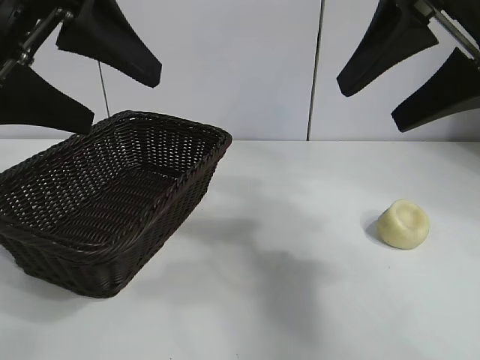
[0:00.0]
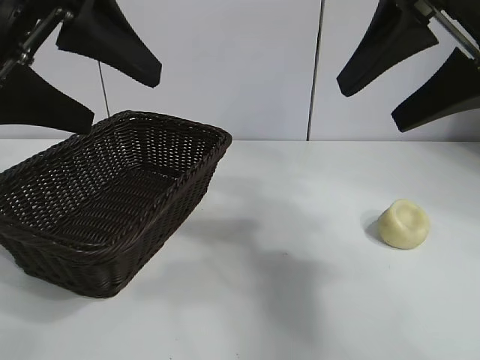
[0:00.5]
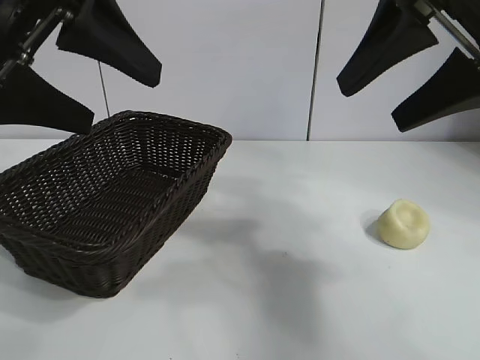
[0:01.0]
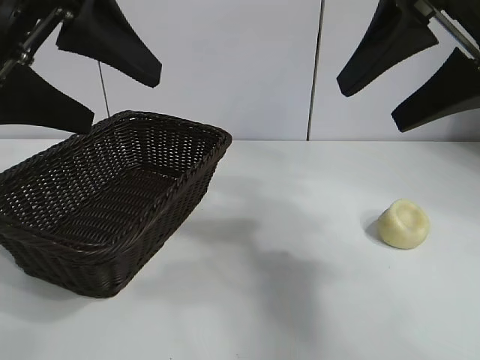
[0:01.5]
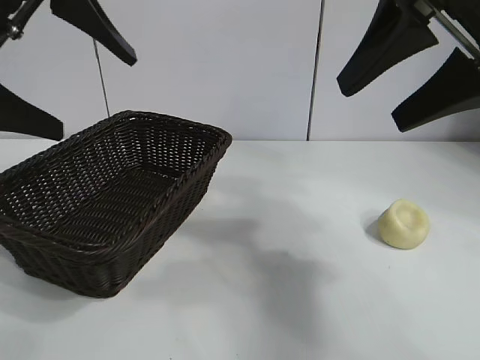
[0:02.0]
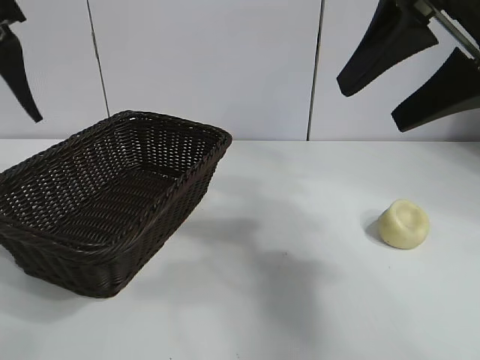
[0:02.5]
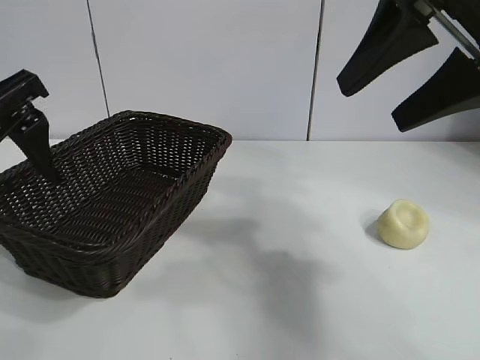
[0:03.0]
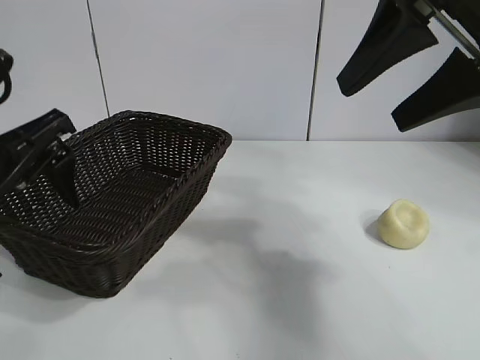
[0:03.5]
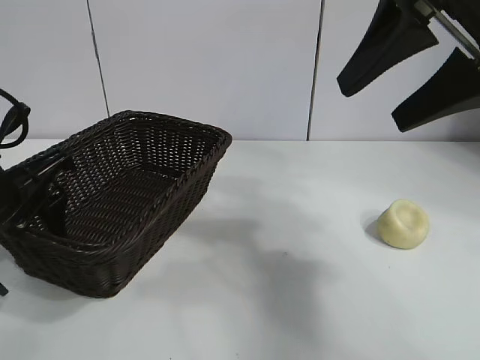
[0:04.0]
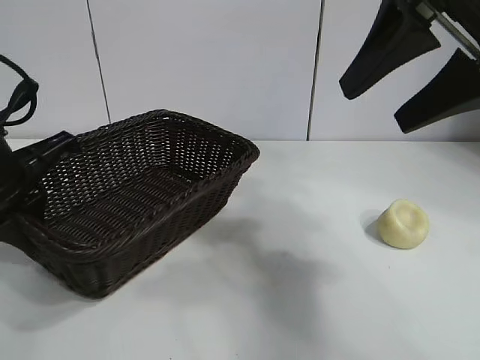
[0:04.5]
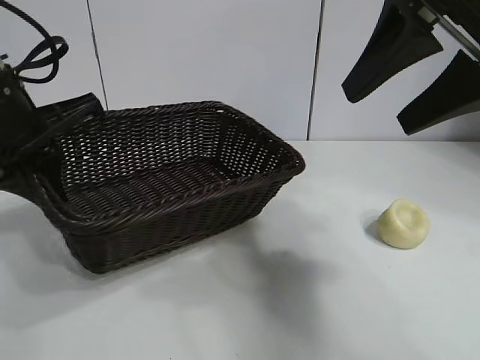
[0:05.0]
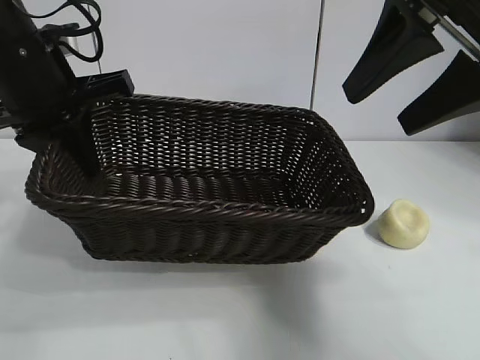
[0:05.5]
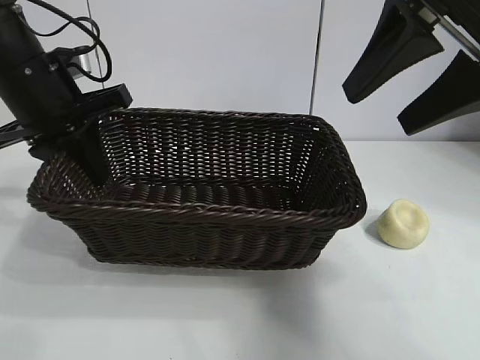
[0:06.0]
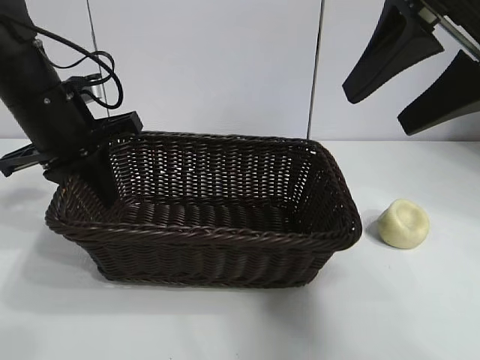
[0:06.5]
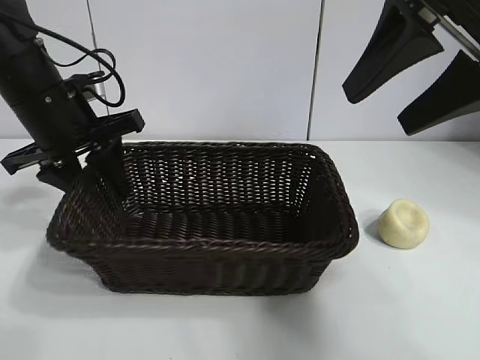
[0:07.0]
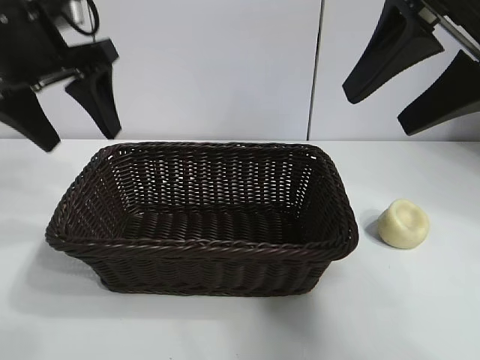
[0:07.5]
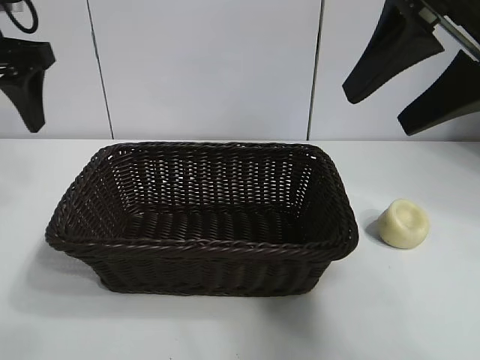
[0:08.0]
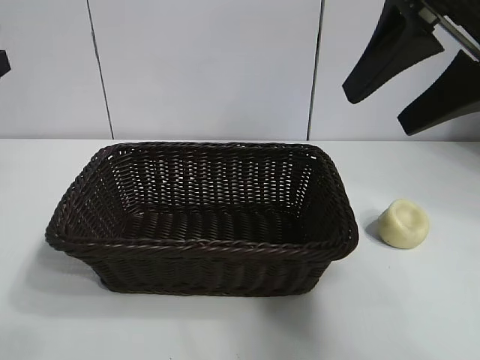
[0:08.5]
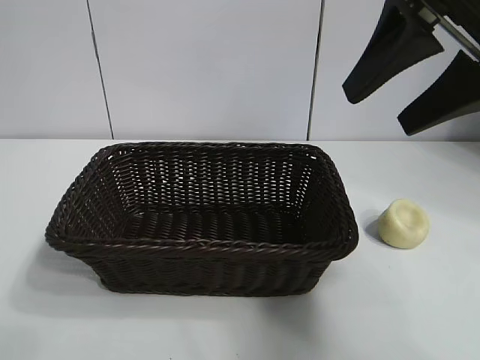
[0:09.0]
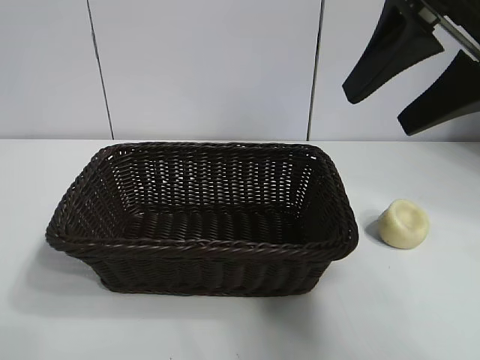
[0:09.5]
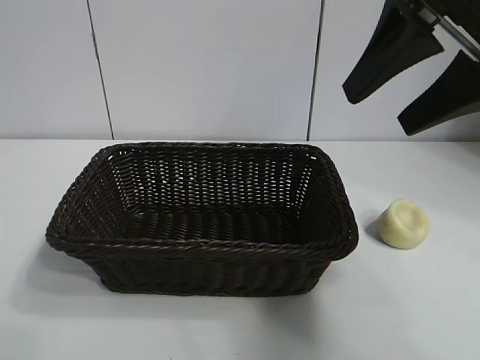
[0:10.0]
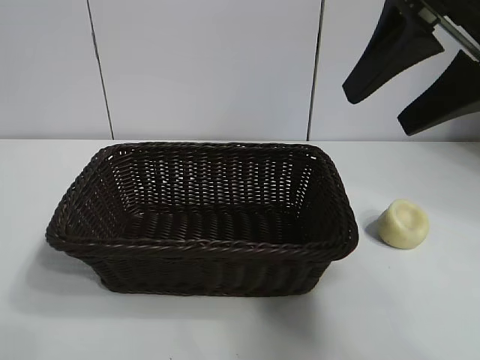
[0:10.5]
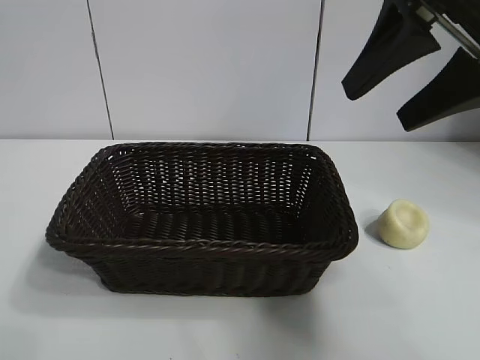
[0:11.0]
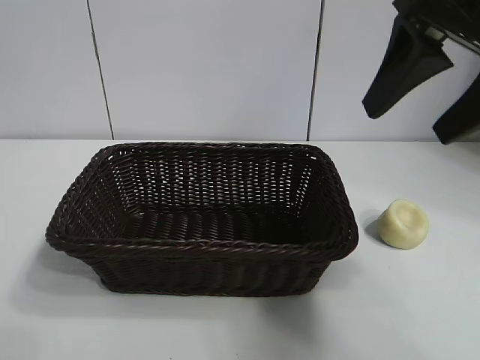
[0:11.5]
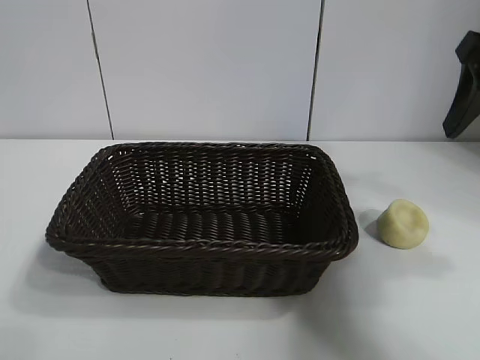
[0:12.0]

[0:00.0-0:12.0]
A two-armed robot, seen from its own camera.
Task of the whole recording: pick up the egg yolk pastry and put it into the basket.
Step, 0:02.0 to 0:04.0: Grasp the basket with left gripper.
Step, 0:04.5 to 0:07.0: Place the basket in the center of view with left gripper.

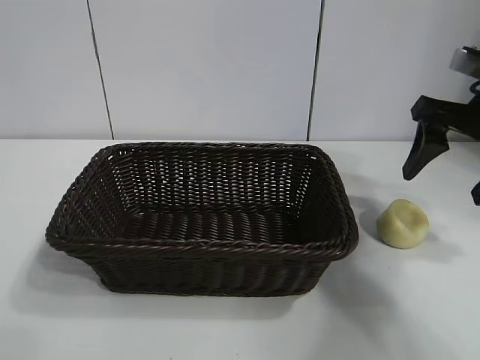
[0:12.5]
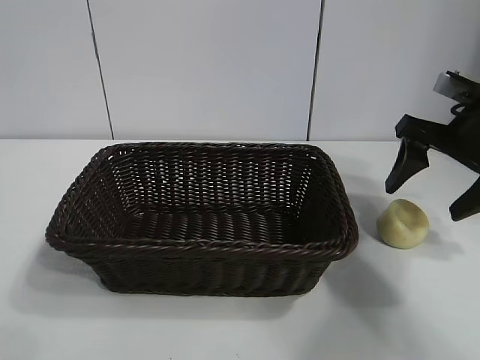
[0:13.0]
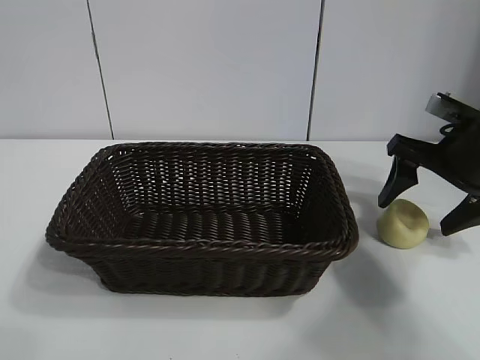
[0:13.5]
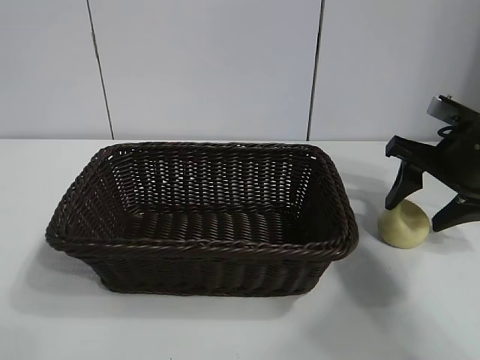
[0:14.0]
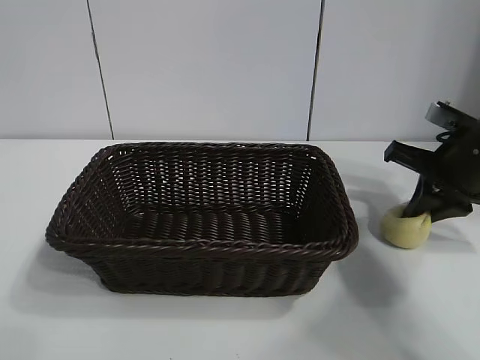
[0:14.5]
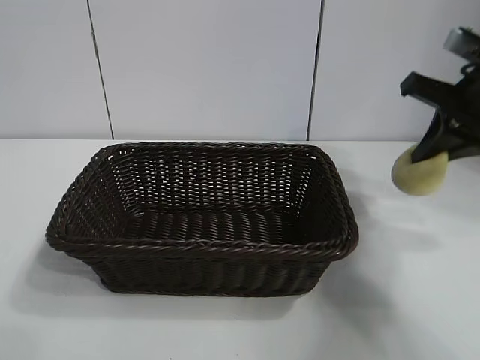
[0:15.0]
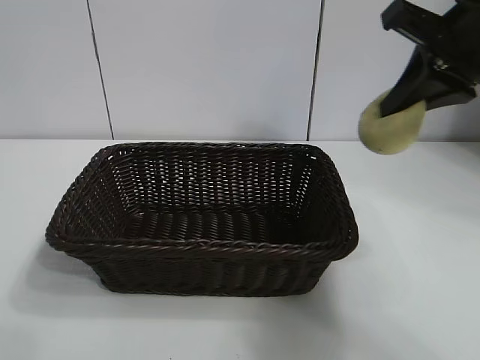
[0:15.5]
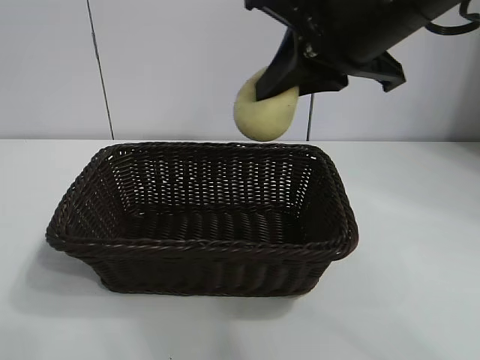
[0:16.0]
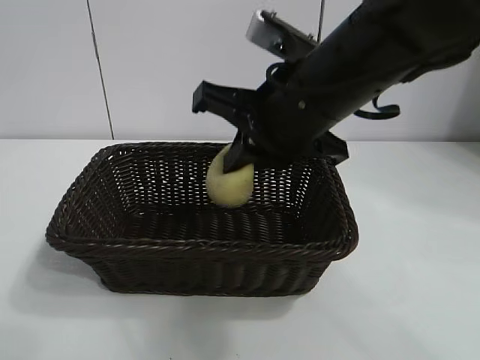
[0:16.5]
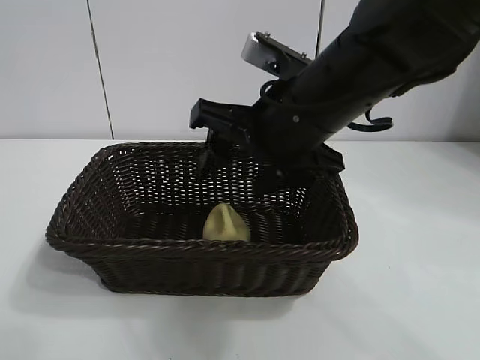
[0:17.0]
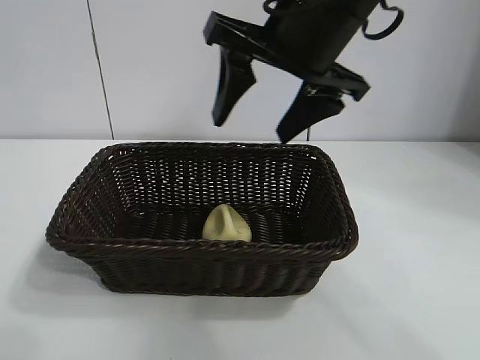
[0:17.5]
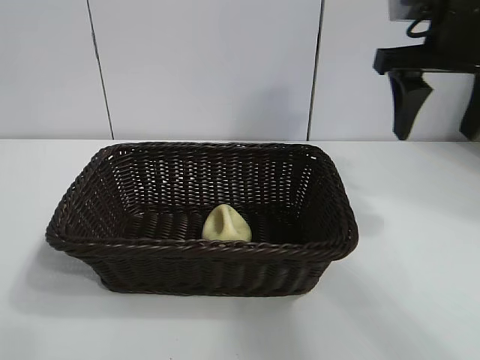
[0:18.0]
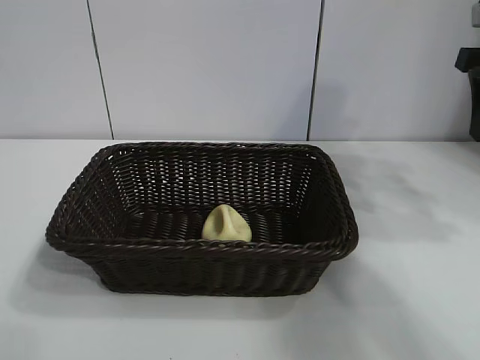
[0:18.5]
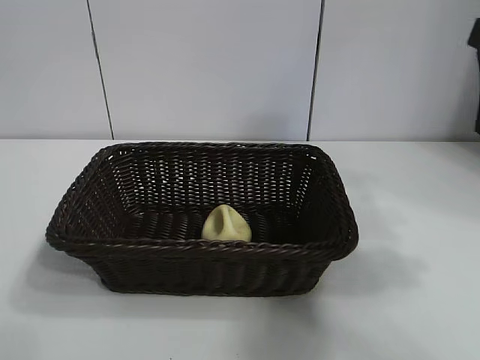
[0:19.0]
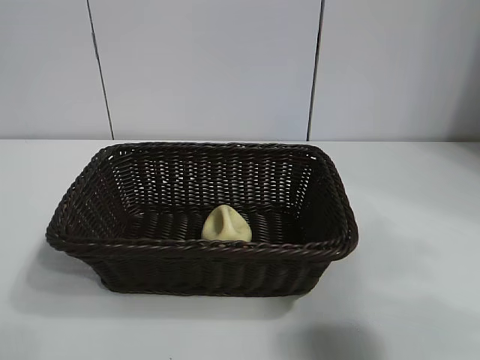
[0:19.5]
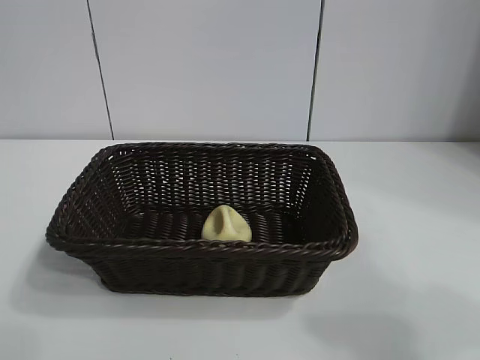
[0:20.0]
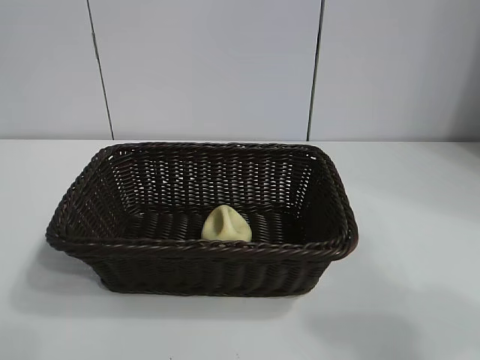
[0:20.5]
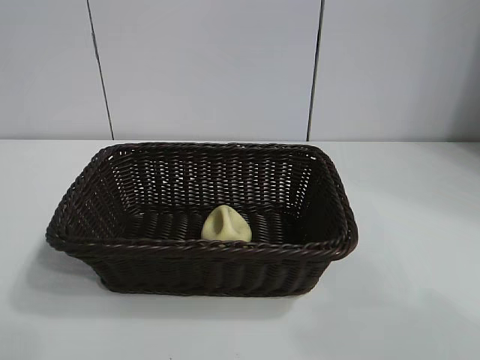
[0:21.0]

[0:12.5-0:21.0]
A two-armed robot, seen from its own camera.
Task of the whole recording: pick up the egg yolk pastry and put it into the basket.
Step, 0:12.5 to 0:14.5: Grasp egg yolk pastry with right gripper.
Step, 0:15.0 to 0:16.5: Place the egg yolk pastry in the basket with right gripper.

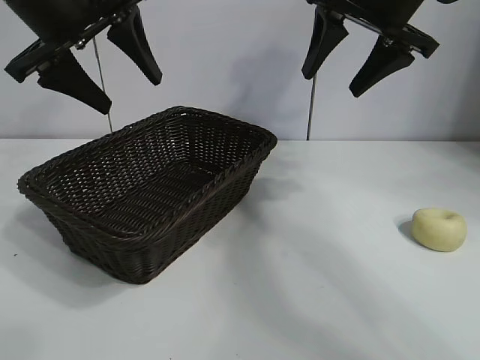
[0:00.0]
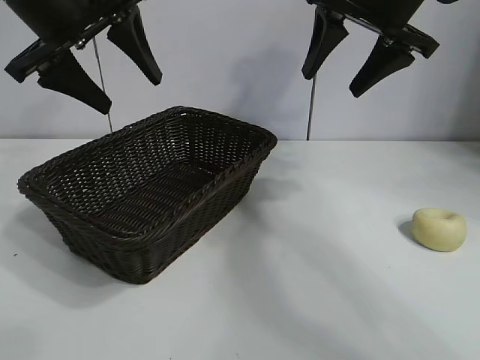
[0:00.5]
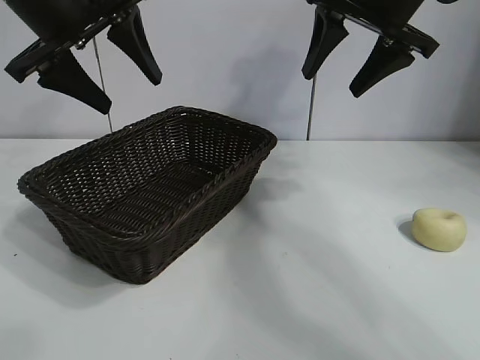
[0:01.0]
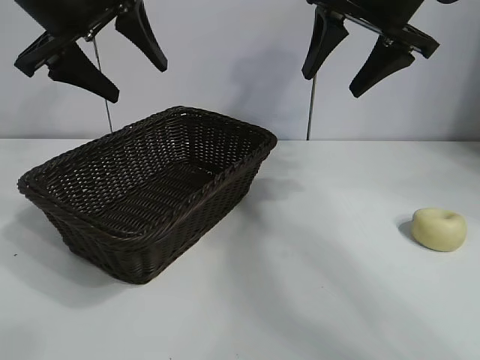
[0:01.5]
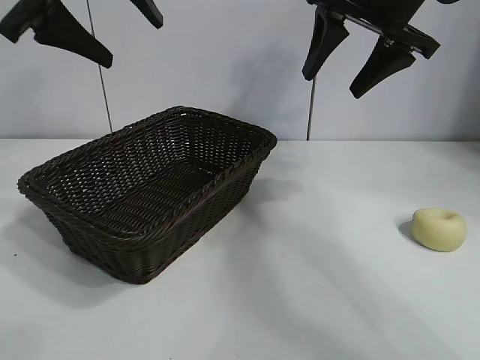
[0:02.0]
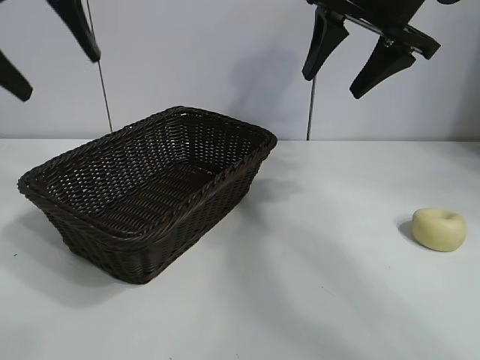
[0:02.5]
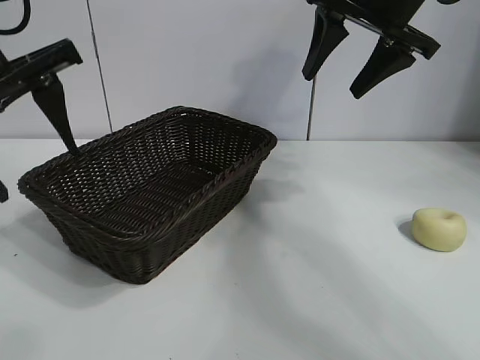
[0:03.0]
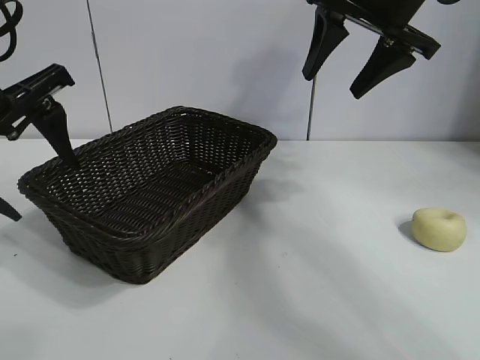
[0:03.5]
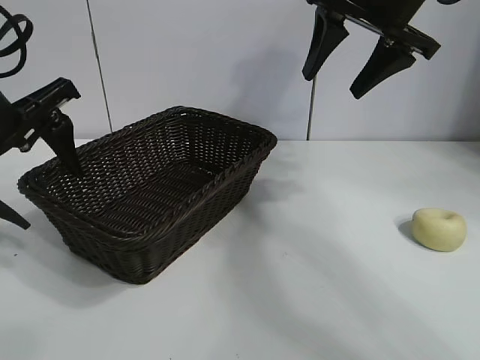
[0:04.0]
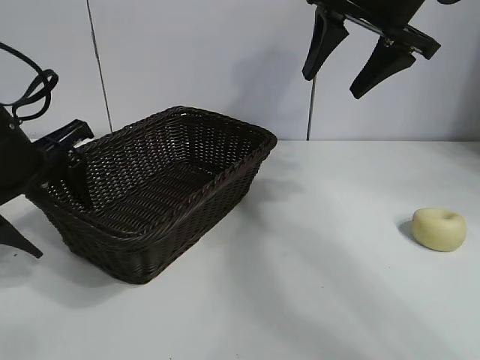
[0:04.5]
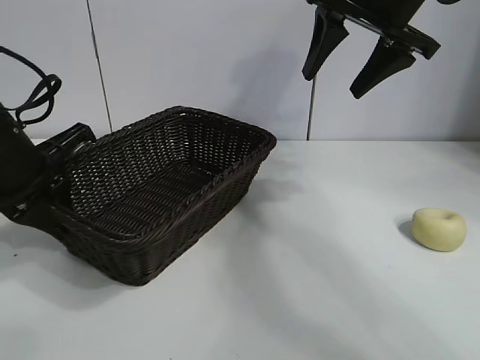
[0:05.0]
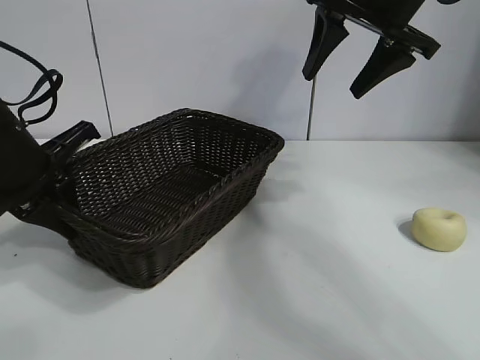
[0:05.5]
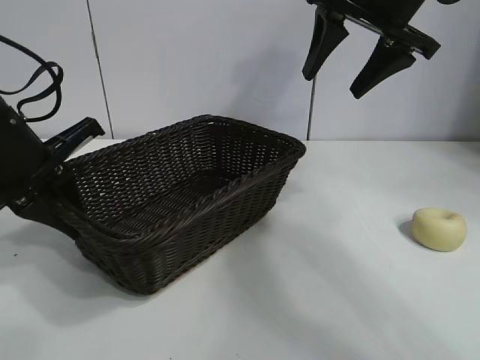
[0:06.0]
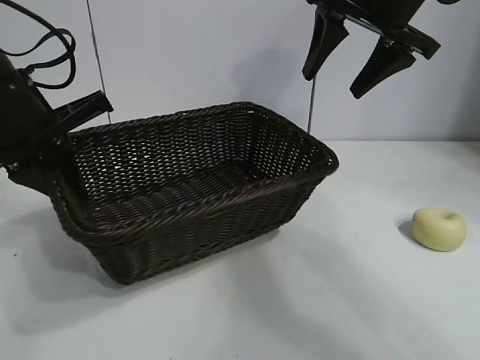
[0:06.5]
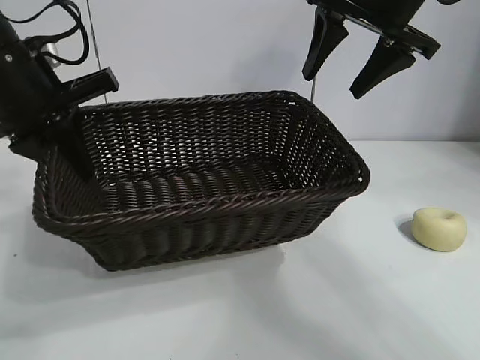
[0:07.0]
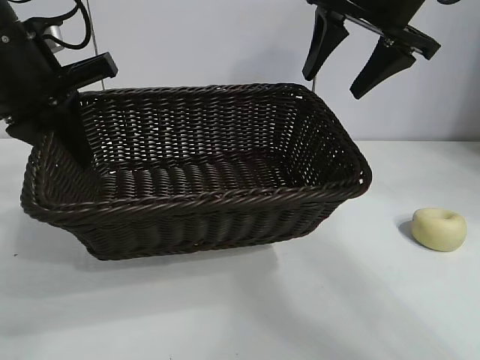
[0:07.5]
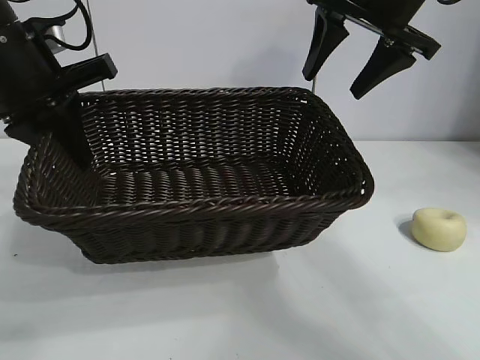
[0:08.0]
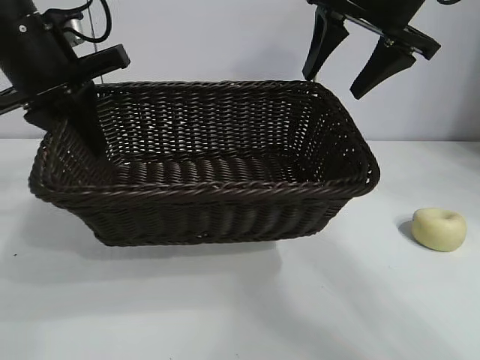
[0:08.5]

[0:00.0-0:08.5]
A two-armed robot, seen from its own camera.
Task of the whole recording: pick up the egg yolk pastry and put it into the basket.
Step, 0:01.5 to 0:05.0: Grasp the basket with left gripper.
